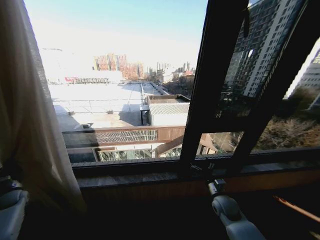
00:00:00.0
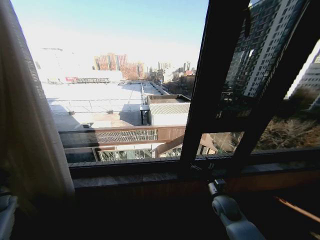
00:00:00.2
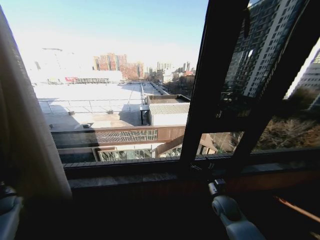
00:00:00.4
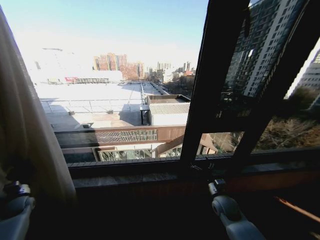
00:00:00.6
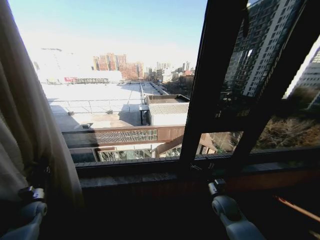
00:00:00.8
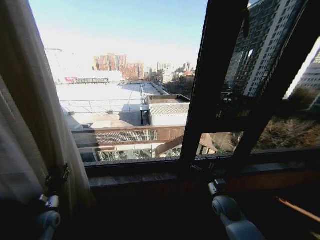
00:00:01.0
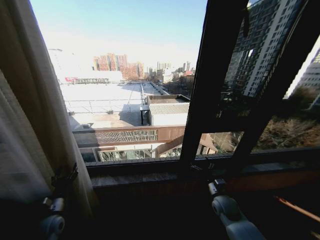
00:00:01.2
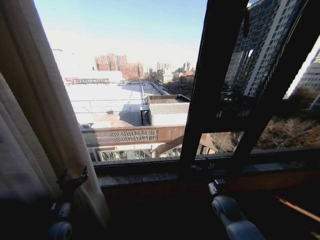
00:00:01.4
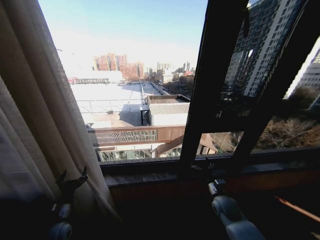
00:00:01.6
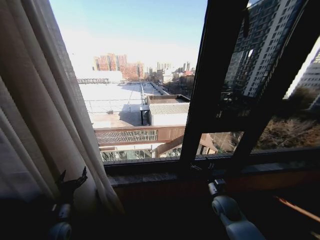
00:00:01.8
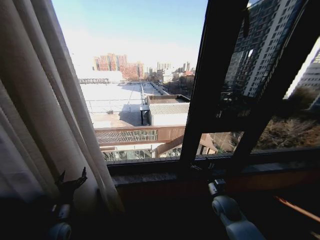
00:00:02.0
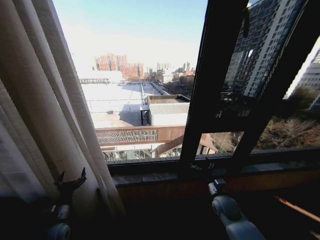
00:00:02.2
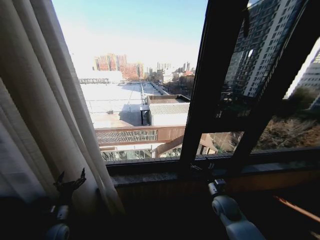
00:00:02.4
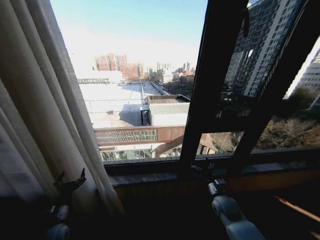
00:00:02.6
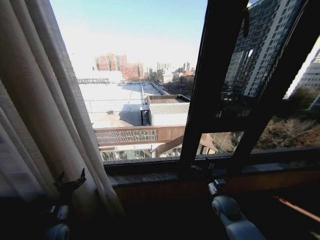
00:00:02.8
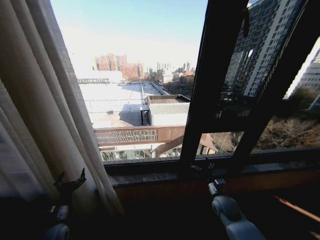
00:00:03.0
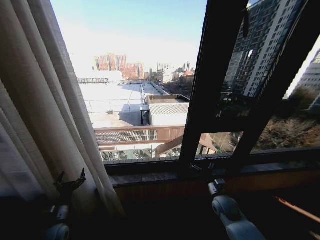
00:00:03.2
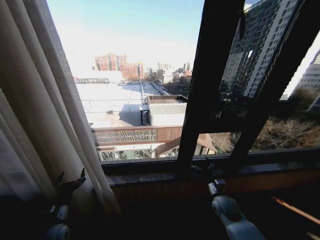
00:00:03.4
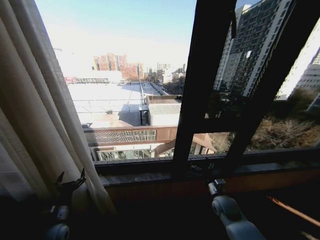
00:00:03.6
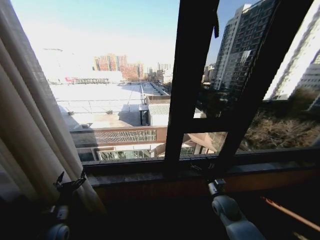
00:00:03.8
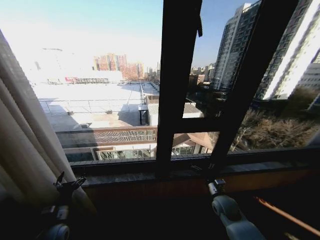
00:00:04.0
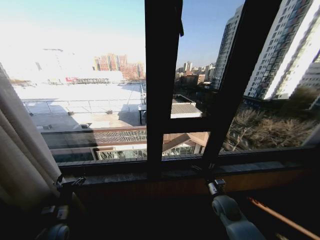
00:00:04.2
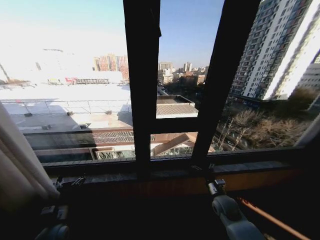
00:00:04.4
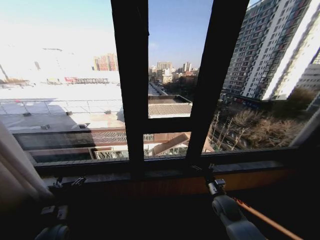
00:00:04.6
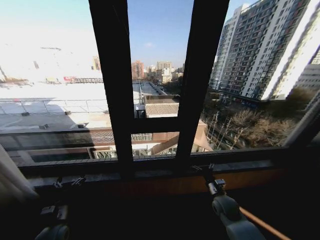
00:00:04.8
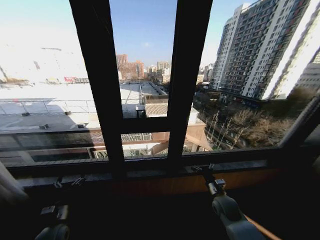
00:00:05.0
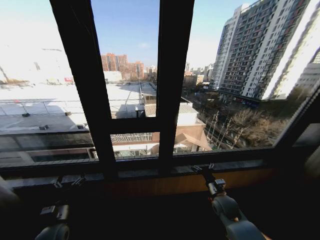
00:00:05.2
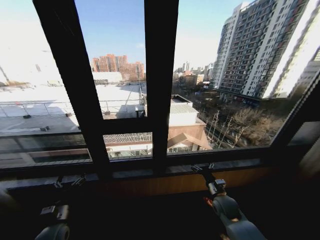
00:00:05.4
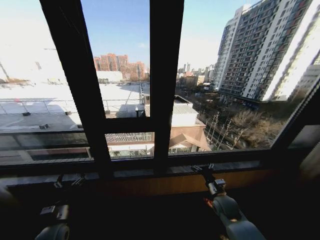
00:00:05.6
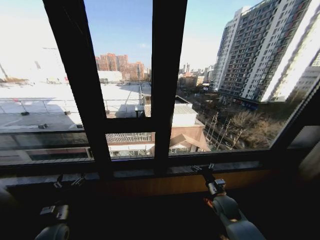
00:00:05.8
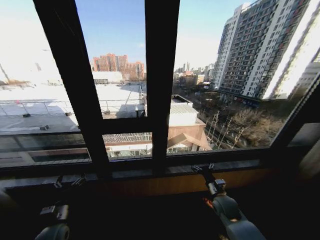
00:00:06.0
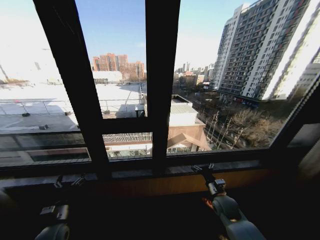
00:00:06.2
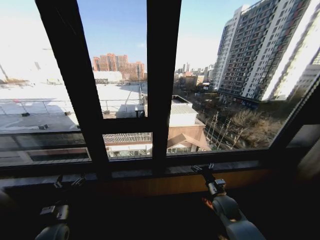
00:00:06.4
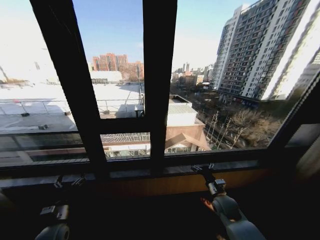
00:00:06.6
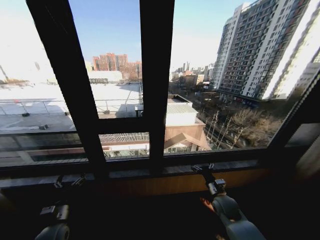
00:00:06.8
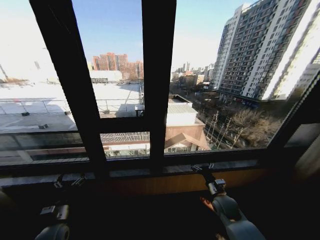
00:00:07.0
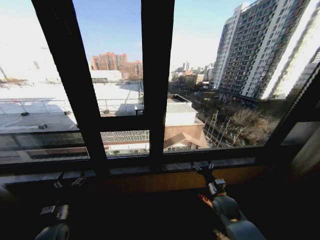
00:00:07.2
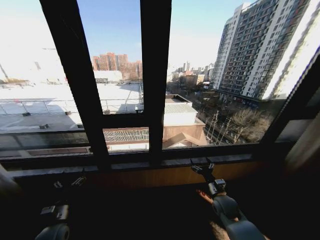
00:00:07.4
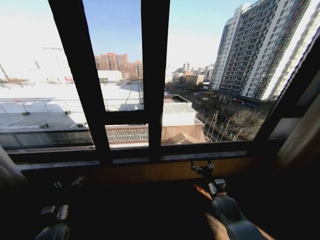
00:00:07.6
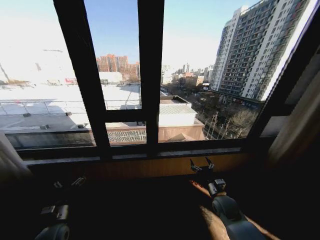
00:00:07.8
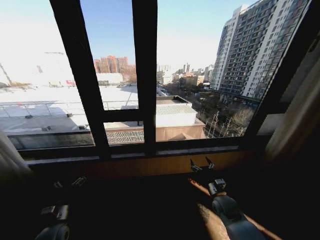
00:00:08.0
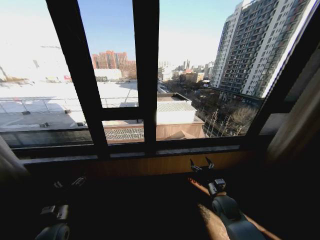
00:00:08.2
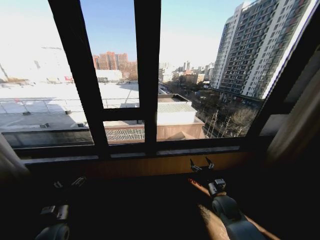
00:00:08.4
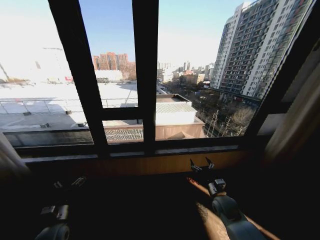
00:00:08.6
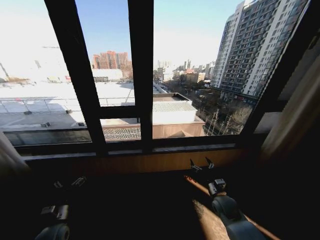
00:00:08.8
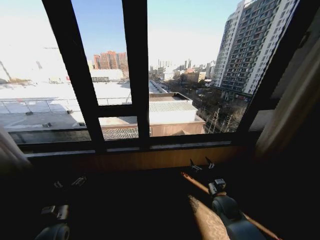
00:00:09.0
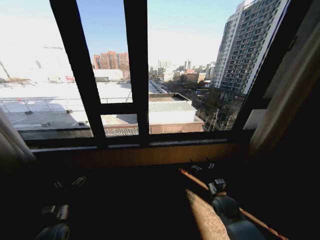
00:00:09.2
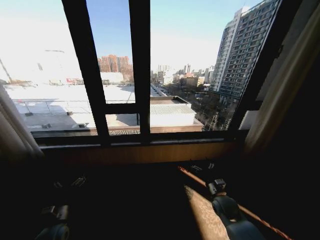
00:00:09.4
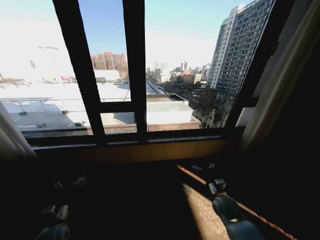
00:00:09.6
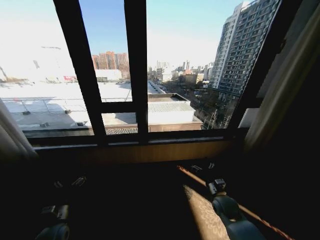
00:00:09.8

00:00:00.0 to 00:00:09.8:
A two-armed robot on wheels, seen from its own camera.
Task of the whole recording: Open the curtains by pulling them apart, changing their state from closed to fully open.
00:00:00.0 to 00:00:01.4: The left gripper moves to the right and backward, about 30 cm, and opens its fingers.
00:00:01.4 to 00:00:02.8: The grippers stay close to where they were, moving slightly.
00:00:05.6 to 00:00:07.0: Neither gripper changes place.

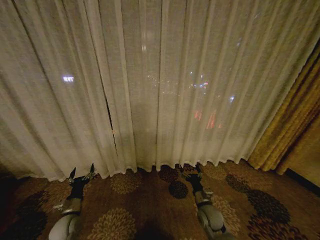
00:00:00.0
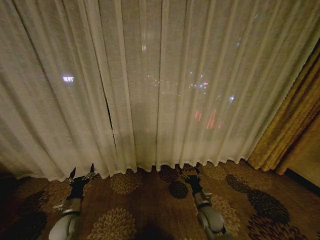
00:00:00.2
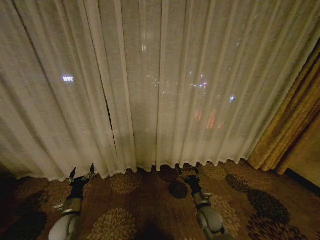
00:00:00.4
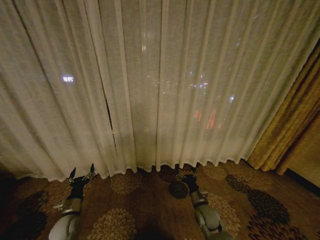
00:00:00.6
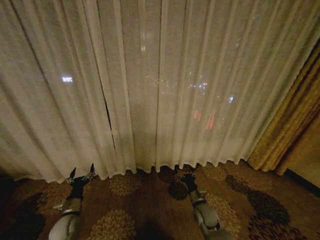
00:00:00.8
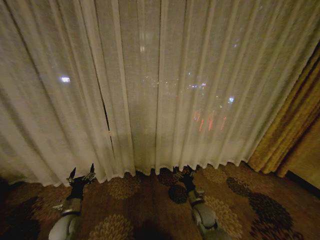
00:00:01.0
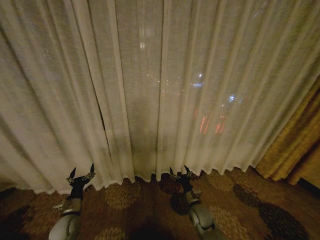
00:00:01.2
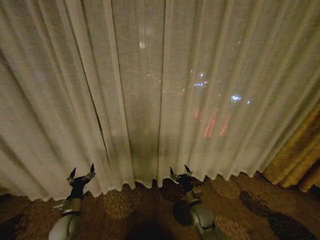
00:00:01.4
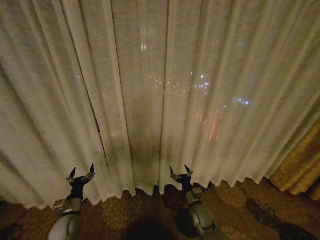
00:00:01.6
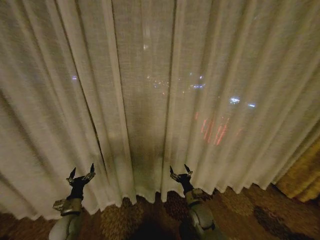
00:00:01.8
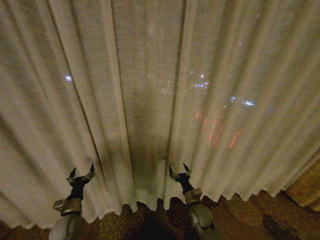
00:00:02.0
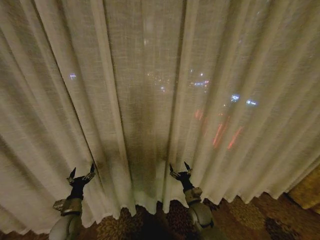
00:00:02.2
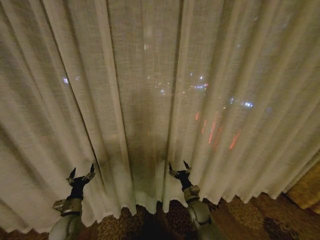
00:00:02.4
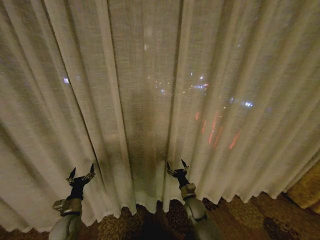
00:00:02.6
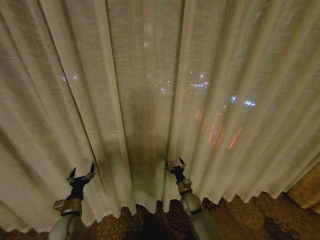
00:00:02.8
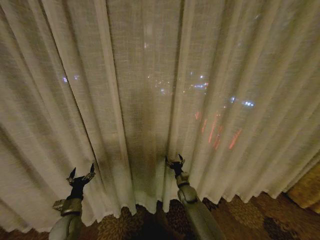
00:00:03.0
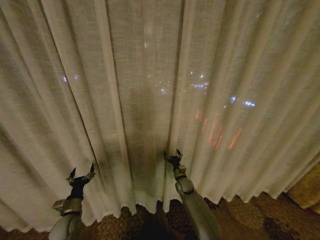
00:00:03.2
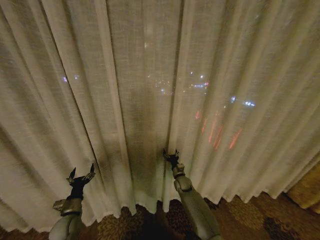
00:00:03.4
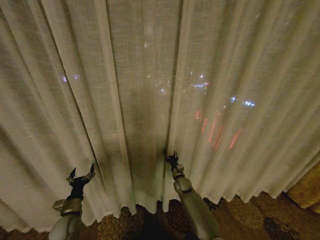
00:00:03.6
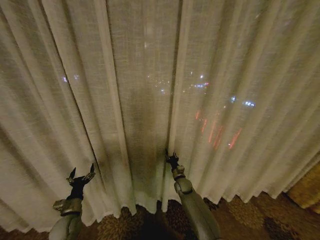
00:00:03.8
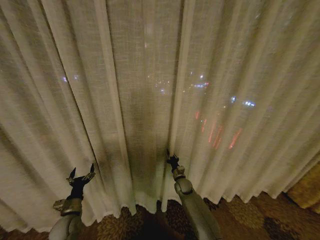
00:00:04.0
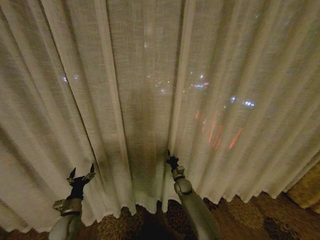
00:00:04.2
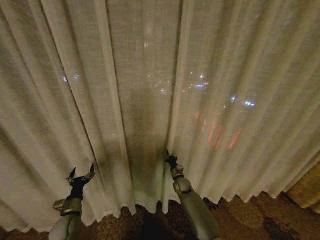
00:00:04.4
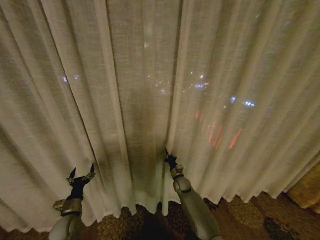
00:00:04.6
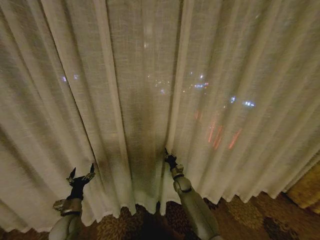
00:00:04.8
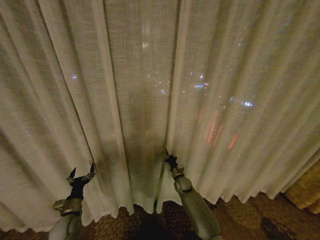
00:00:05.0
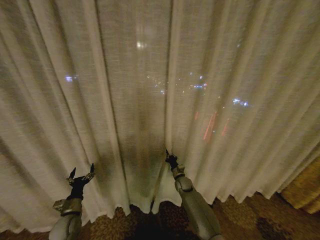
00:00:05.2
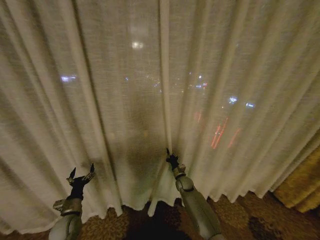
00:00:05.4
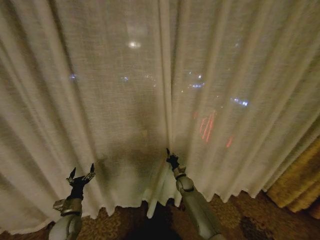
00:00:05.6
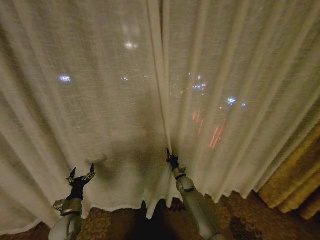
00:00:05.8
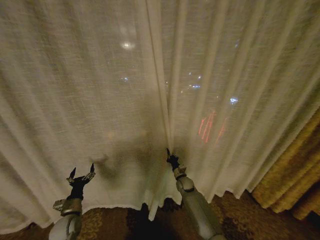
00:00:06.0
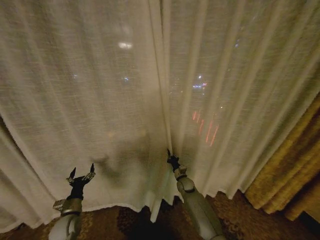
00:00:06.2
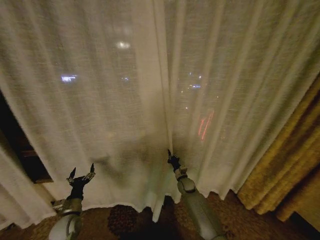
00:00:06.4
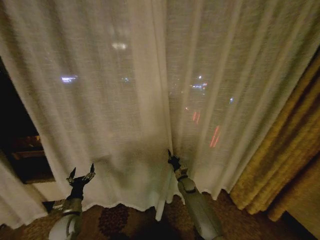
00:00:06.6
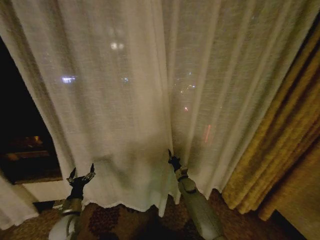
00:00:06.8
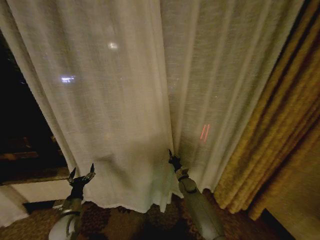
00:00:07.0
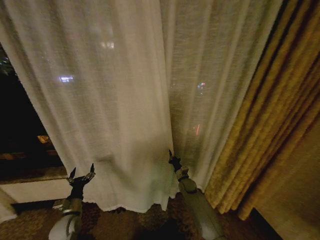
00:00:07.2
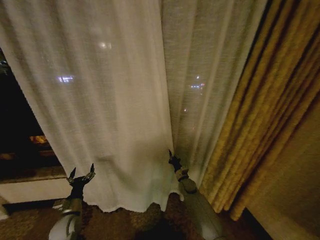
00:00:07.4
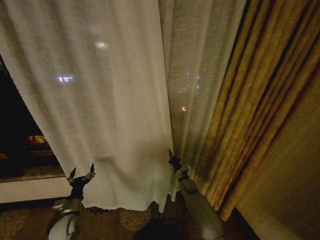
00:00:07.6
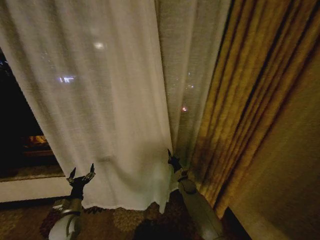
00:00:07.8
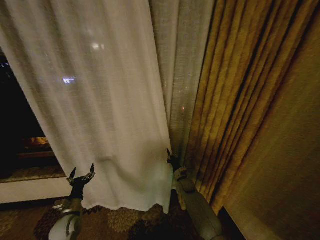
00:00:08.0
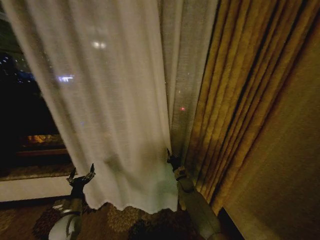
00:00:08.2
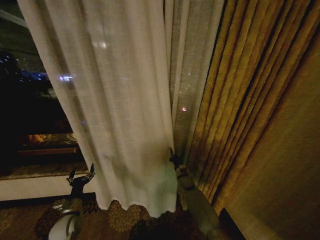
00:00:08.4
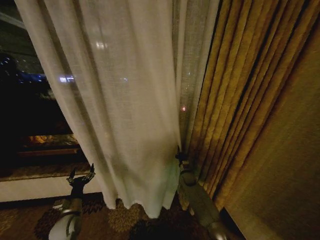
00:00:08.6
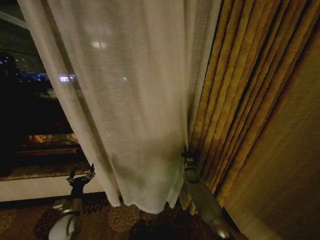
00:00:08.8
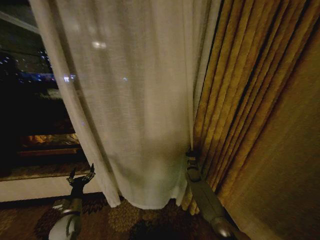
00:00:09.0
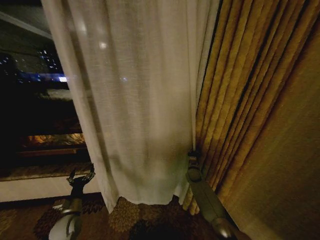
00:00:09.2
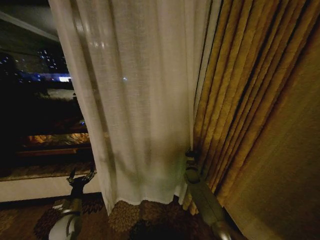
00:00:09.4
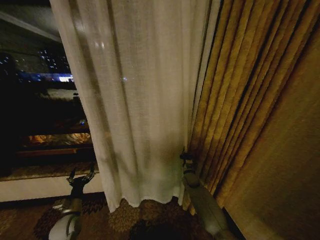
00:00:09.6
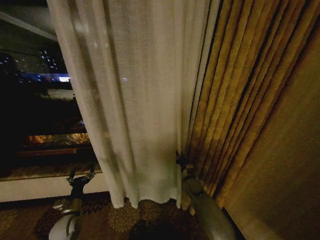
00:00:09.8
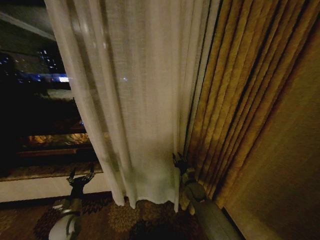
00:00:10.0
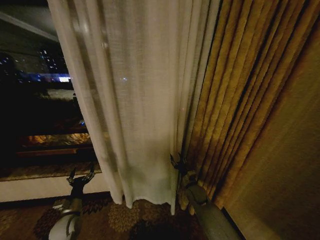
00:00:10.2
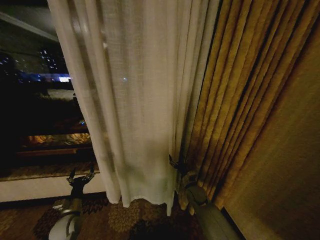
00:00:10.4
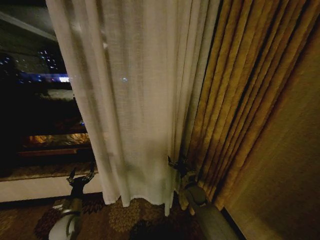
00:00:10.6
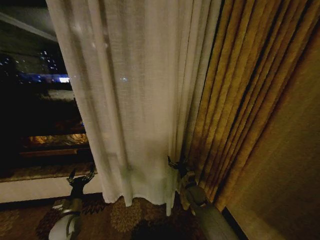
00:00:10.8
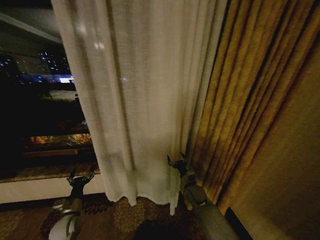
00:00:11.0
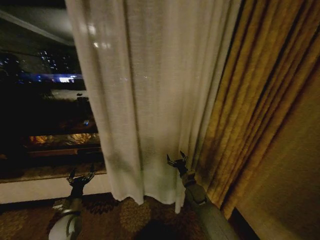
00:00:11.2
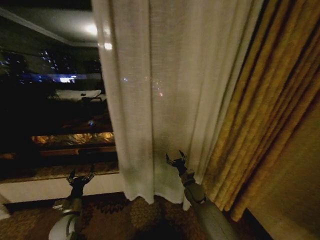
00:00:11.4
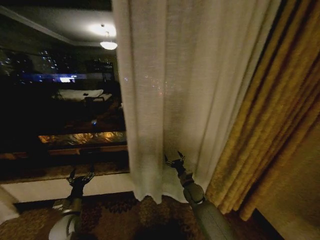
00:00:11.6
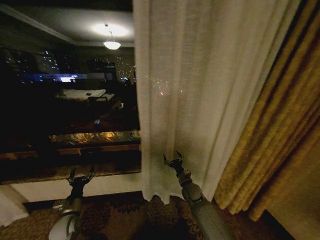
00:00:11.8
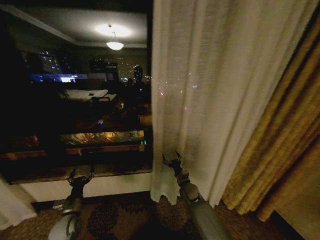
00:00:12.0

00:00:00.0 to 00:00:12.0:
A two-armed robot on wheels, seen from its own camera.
Task of the whole recording: Open the curtains by pulling them apart, changing their state from closed to fully open.
00:00:01.6 to 00:00:03.0: The right gripper goes about 10 cm forward.
00:00:03.0 to 00:00:04.4: The right gripper closes its fingers.
00:00:07.6 to 00:00:09.0: The right gripper shifts some 10 cm forward and to the right.
00:00:09.0 to 00:00:10.4: The right gripper moves backward, about 10 cm, and opens up.

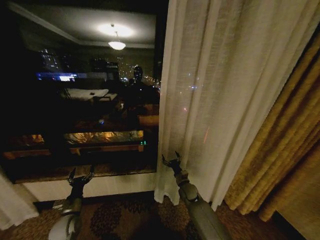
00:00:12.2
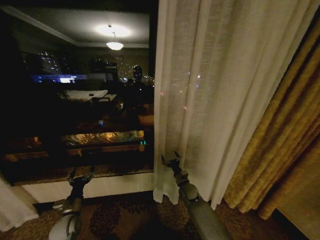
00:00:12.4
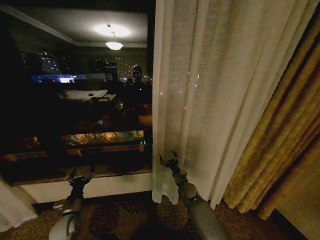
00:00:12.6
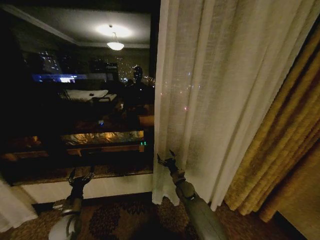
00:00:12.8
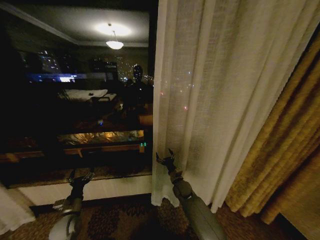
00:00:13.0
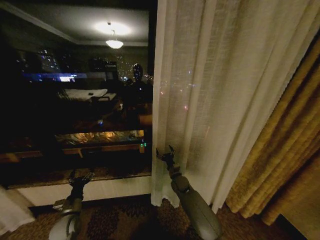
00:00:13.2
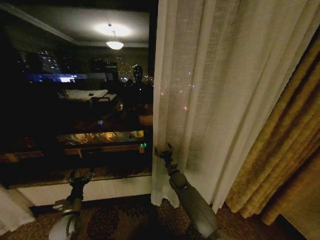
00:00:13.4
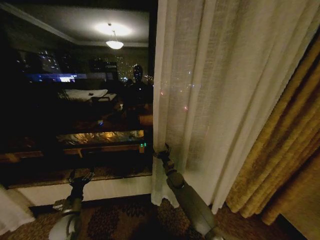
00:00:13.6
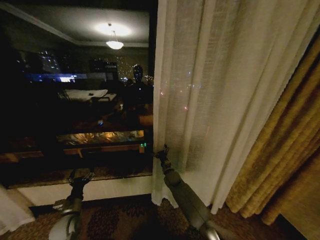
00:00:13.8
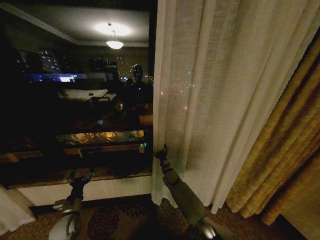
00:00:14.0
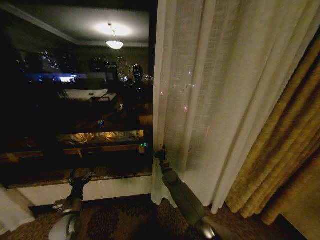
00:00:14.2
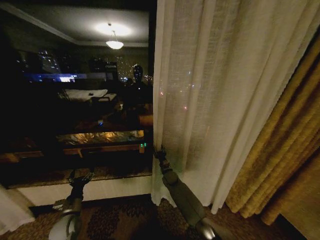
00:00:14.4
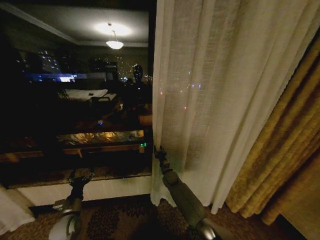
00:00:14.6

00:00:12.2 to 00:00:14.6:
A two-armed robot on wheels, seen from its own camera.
Task of the whole recording: Open the curtains by pulling them apart, changing their state from closed to fully open.
00:00:12.2 to 00:00:13.4: The right gripper heads forward, covering approximately 5 cm.
00:00:13.4 to 00:00:14.6: The right gripper changes place by about 5 cm, and closes.
